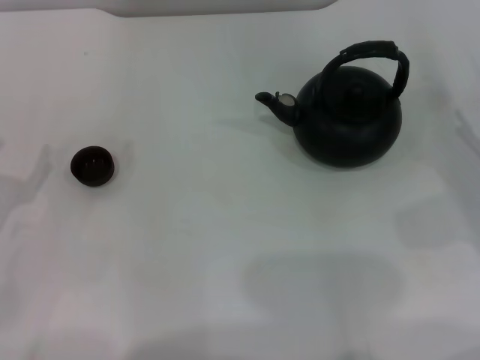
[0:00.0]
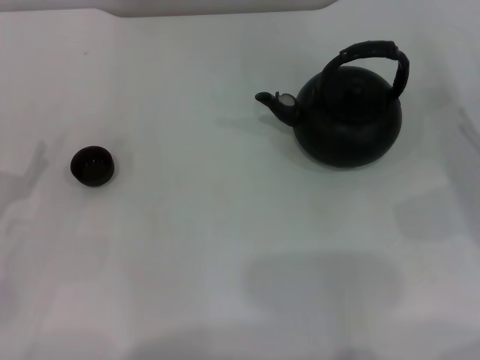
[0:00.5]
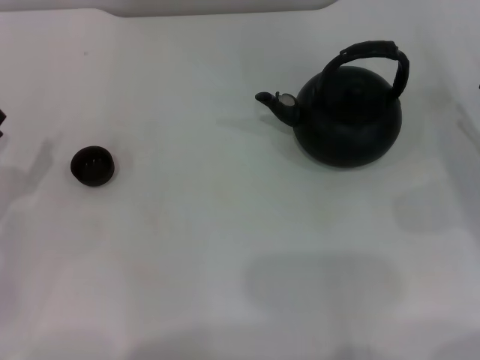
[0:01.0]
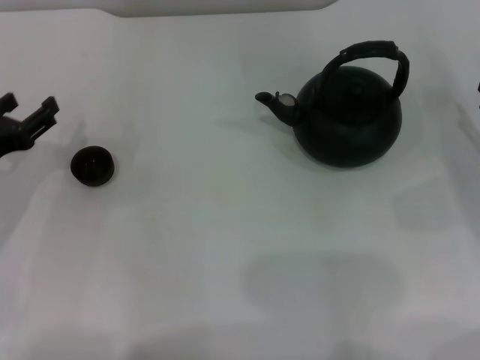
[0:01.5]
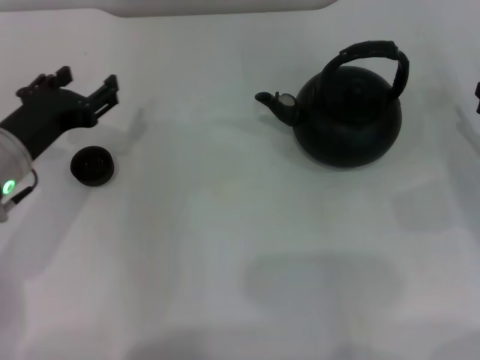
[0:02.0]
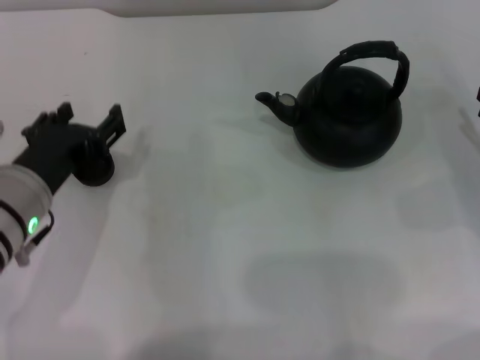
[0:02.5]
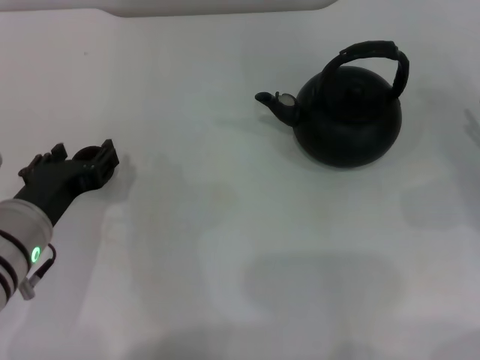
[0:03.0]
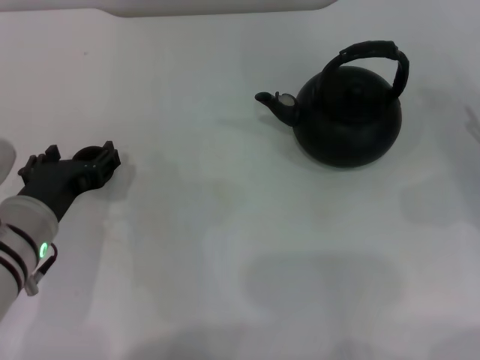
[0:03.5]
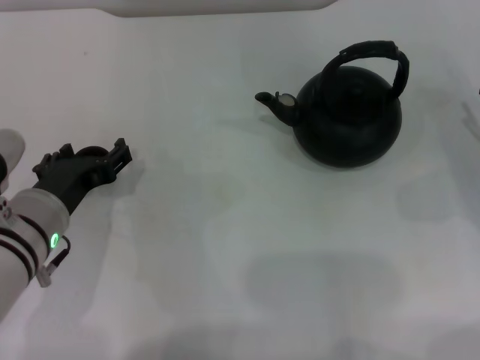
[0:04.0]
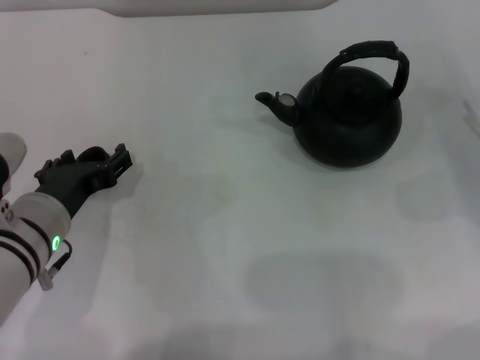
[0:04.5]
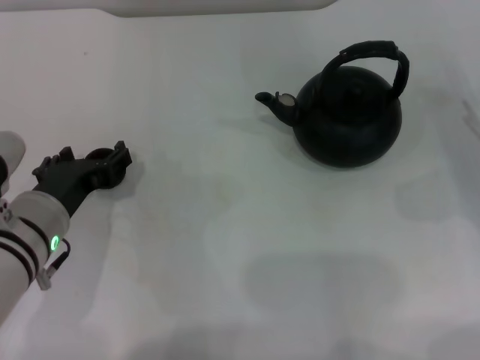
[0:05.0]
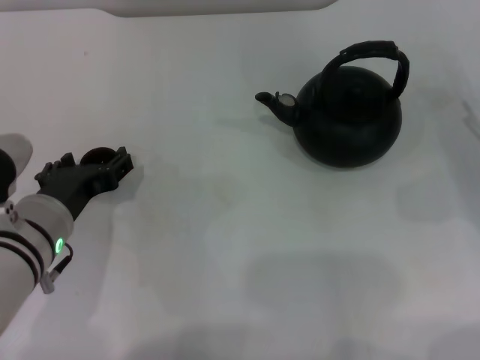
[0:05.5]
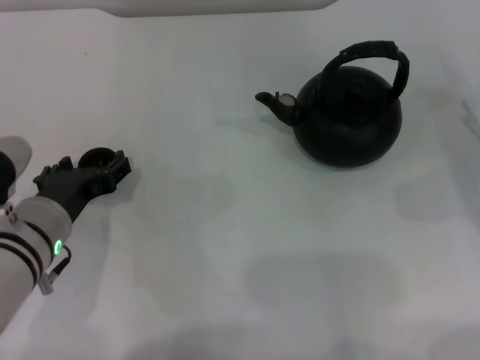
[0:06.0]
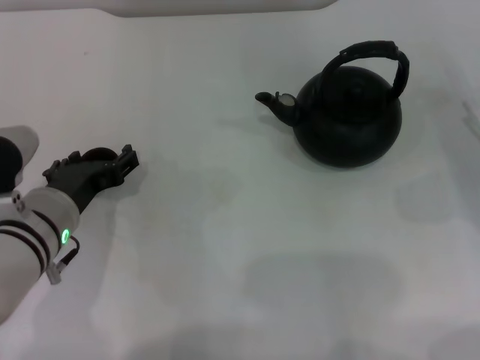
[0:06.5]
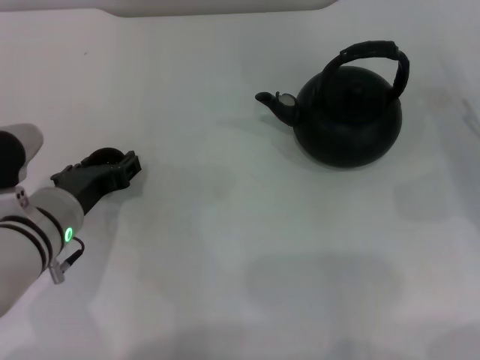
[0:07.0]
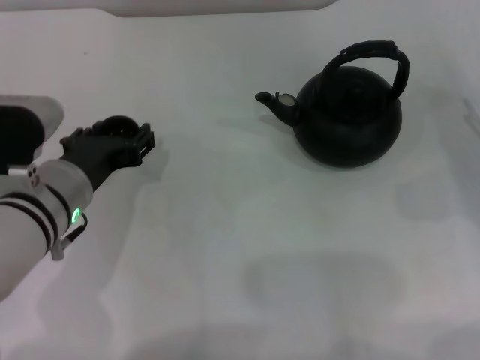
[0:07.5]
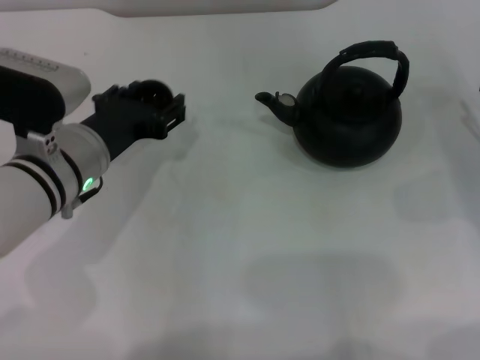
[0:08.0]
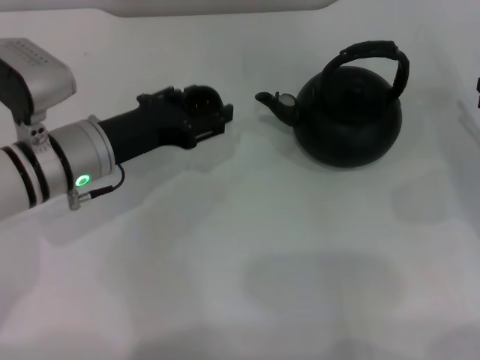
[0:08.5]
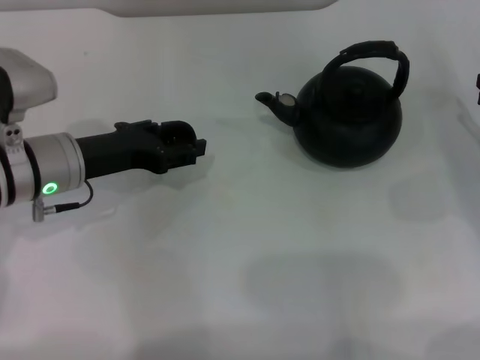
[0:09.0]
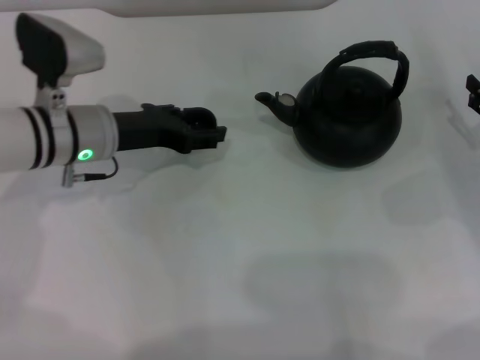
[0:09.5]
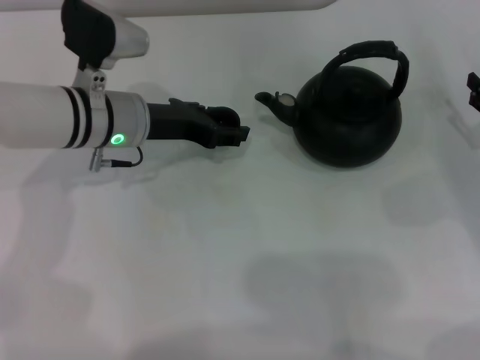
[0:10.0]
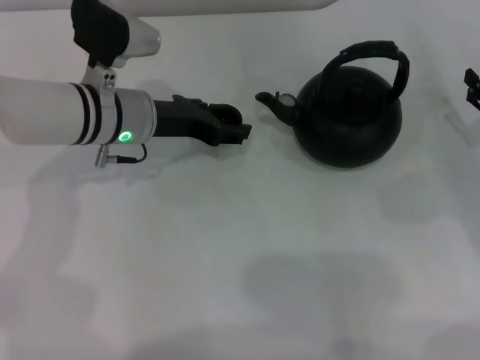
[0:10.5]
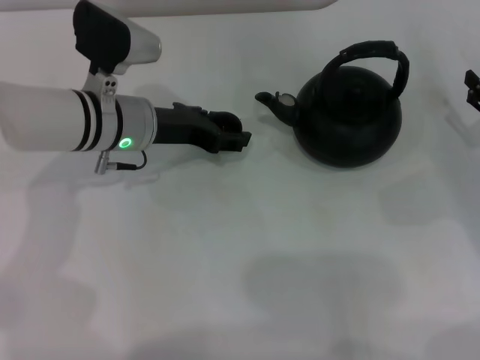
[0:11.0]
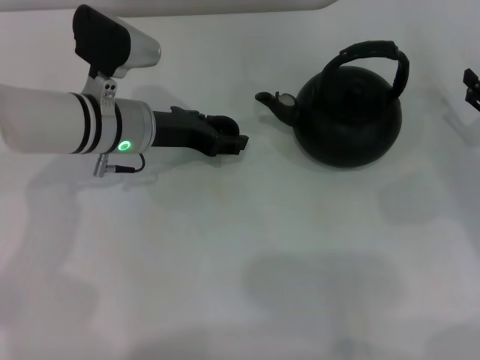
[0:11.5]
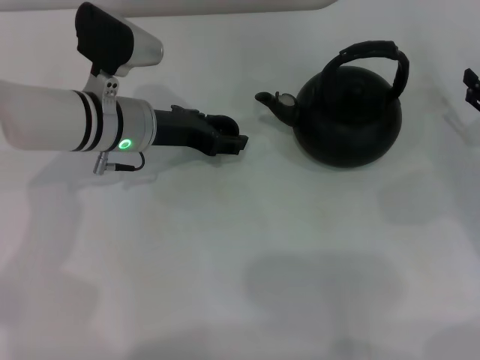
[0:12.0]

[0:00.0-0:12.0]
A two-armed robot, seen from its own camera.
Task of the whole recording: Grasp the handle of the teapot with one hand and pour tea into the teacup.
Step, 0:00.0 to 0:07.5: Pick up the teacup with the left gripper.
0:00.0 to 0:02.0: The left gripper is displaced to the right, forward and upward by some 15 cm.
0:02.0 to 0:04.0: The left gripper shifts by some 5 cm, and opens up.
0:04.0 to 0:06.0: Both grippers stay about where they are.
0:06.0 to 0:08.0: The left gripper shifts some 5 cm forward, and closes.
0:08.0 to 0:10.0: The left gripper heads forward, covering approximately 10 cm.
0:10.0 to 0:12.0: Neither gripper changes place.

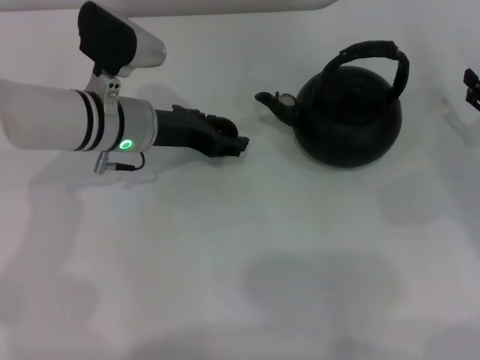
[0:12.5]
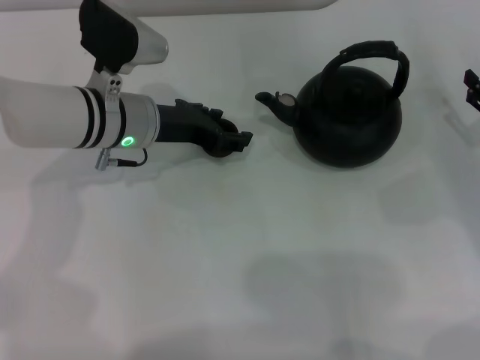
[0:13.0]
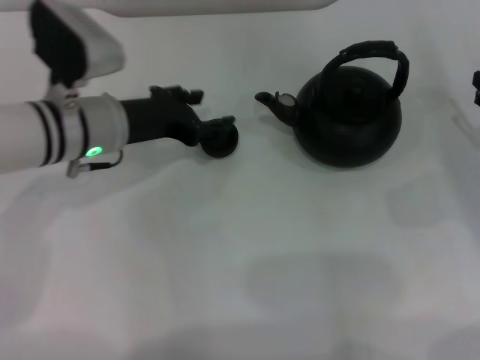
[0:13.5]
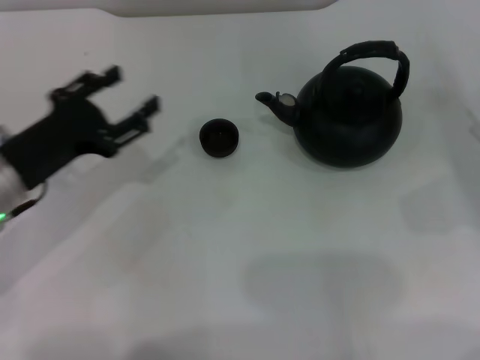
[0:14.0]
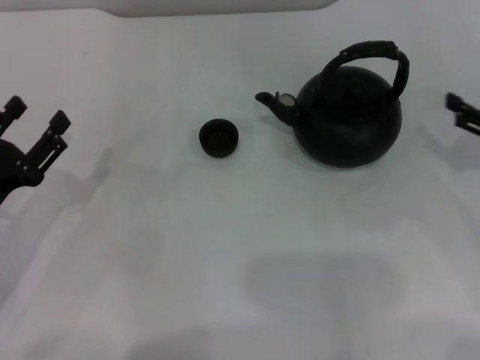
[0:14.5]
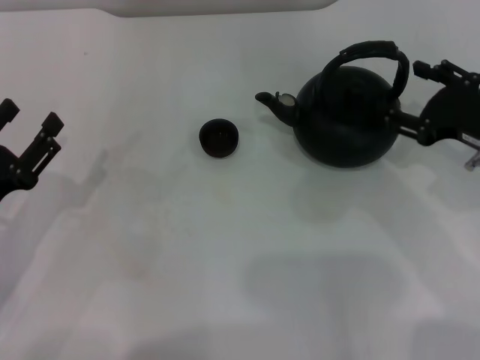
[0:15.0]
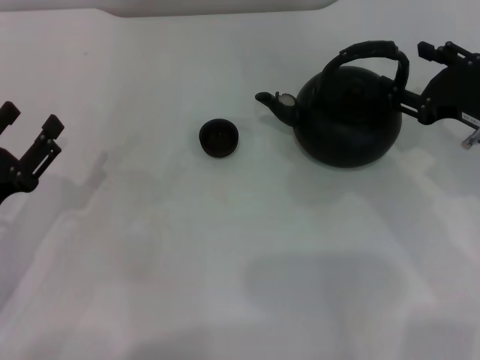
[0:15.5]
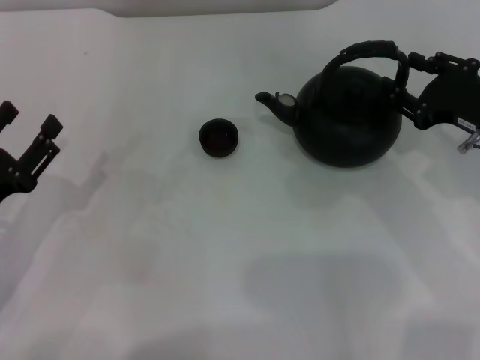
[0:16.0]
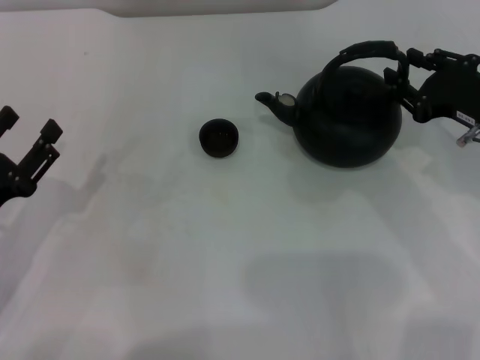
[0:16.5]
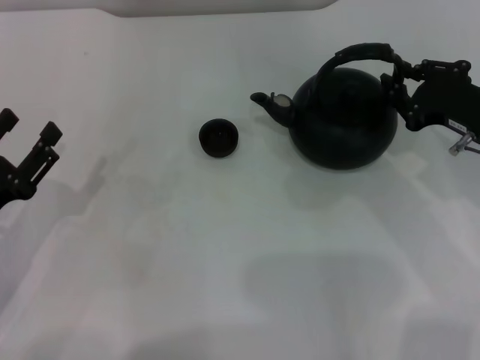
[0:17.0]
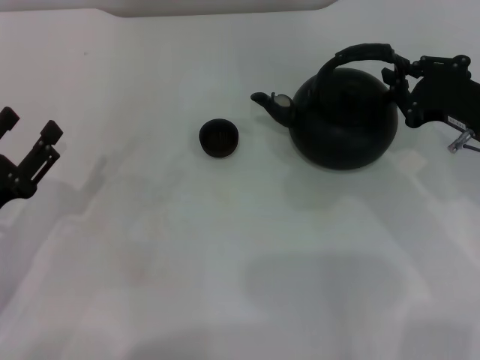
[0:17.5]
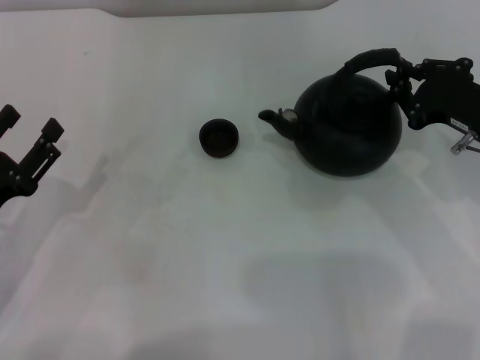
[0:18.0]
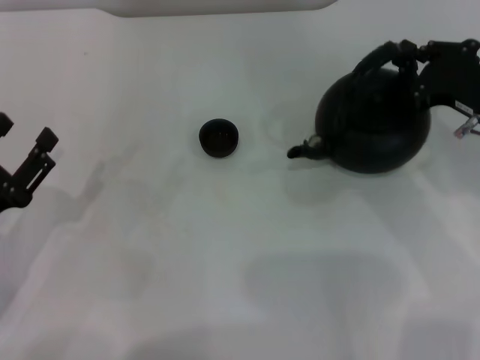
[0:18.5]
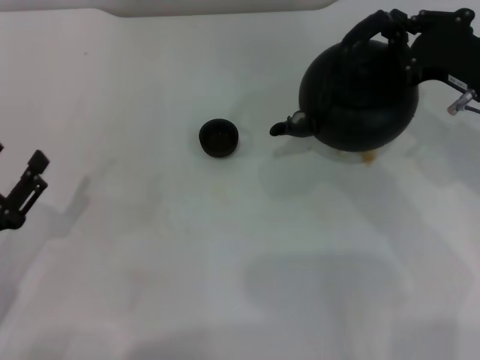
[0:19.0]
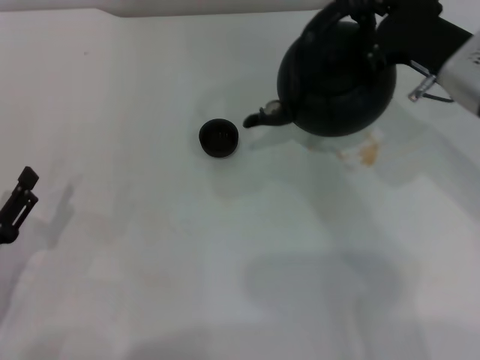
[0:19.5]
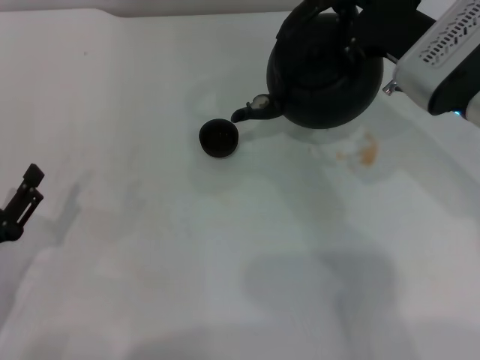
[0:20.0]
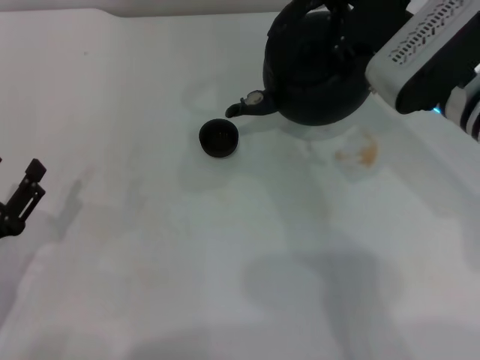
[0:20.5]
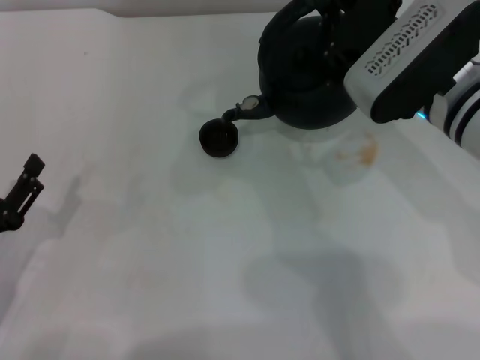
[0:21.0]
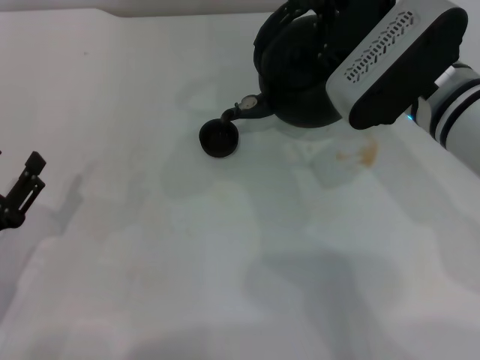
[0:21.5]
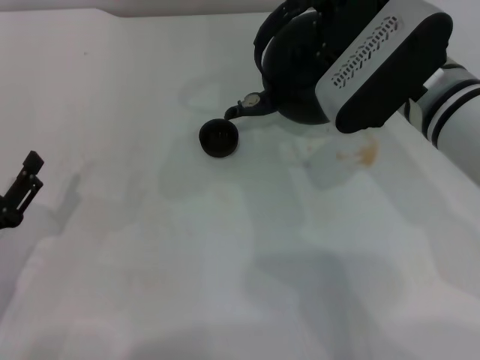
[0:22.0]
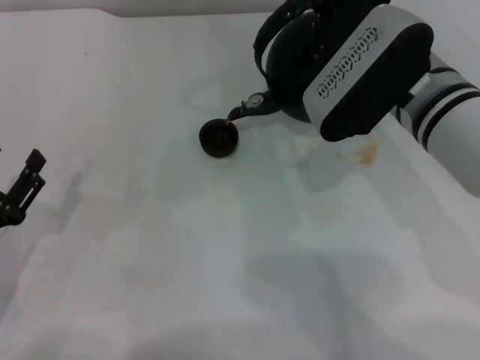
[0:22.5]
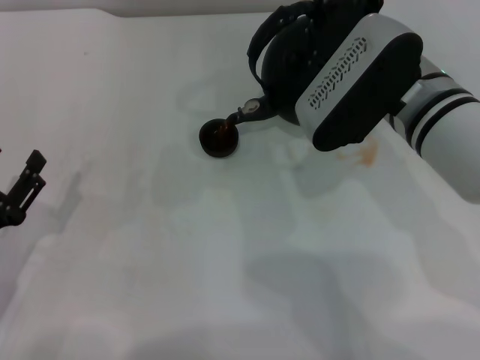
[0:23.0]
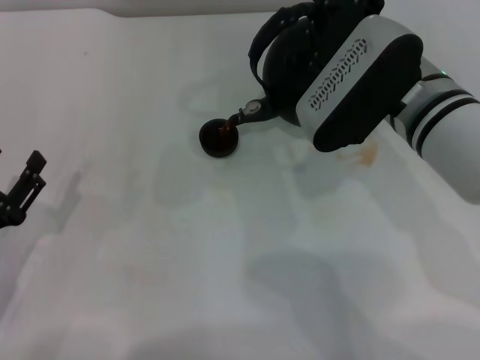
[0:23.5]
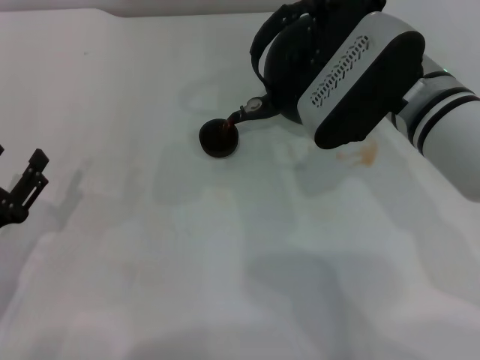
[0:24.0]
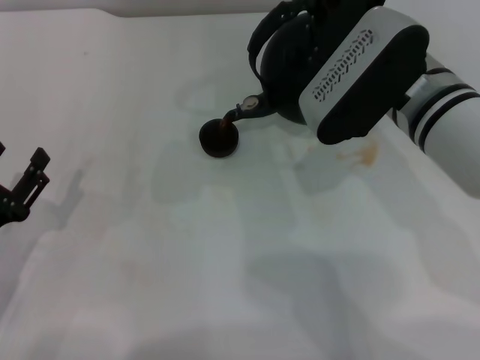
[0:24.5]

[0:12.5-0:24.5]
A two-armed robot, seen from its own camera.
Task of the whole recording: Grasp the handle of the teapot with one hand and pour tea into the teacup.
Step, 0:13.5 to 0:19.0: Pick up the teapot with the right gripper.
0:12.5 to 0:14.5: The left gripper heads backward and to the left, covering roughly 20 cm, while the right gripper goes approximately 5 cm upward.
0:14.5 to 0:16.5: The right gripper moves to the left, some 5 cm, and closes its fingers.
0:16.5 to 0:18.5: The right gripper closes.
0:18.5 to 0:20.5: The right gripper shifts approximately 10 cm to the left.
0:20.5 to 0:22.5: The grippers move only a little.
0:22.5 to 0:24.5: The two grippers keep their place.

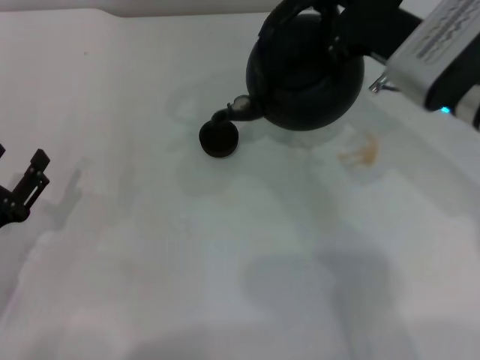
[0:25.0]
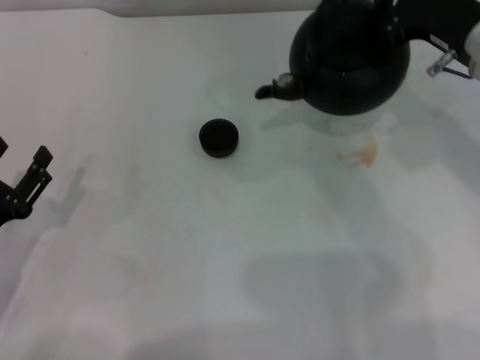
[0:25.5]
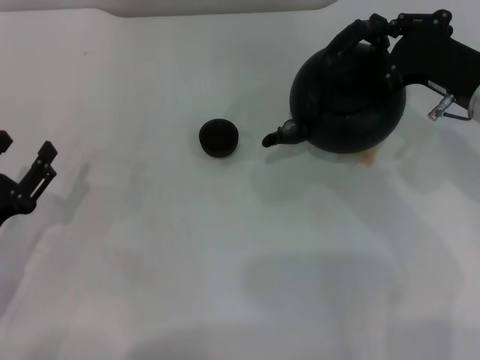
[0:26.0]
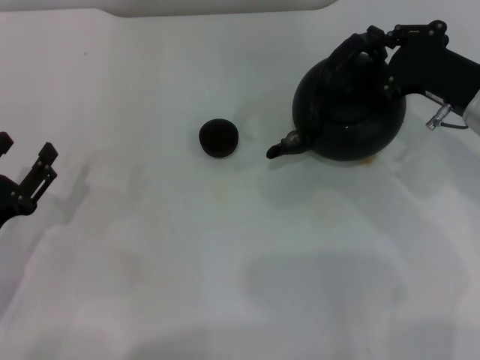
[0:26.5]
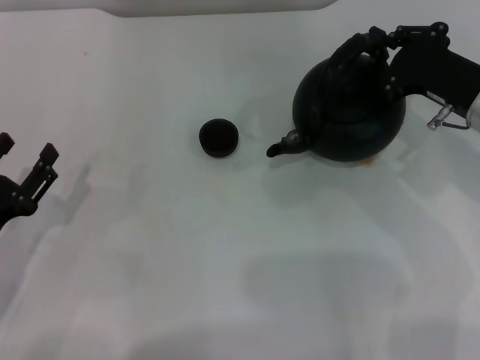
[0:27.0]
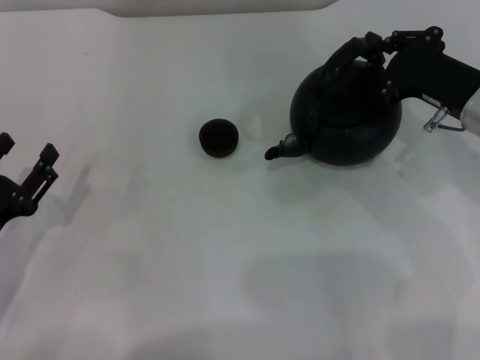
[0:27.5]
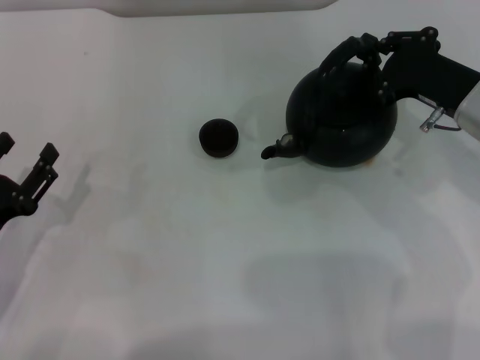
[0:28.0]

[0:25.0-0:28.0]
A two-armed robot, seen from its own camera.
Task of the whole recording: Grasp the handle of the teapot with one hand and pour tea into the teacup.
0:25.0 to 0:26.5: The right gripper shifts some 5 cm to the right.
0:26.5 to 0:28.0: Both grippers stay put.
